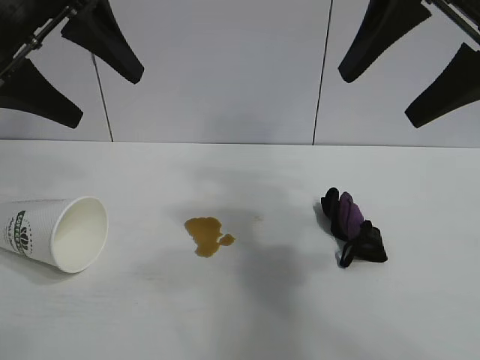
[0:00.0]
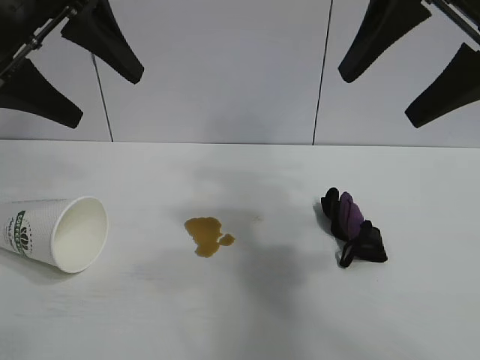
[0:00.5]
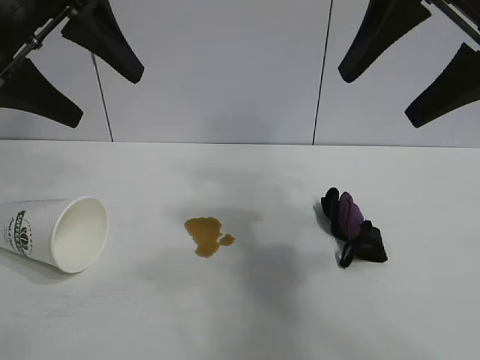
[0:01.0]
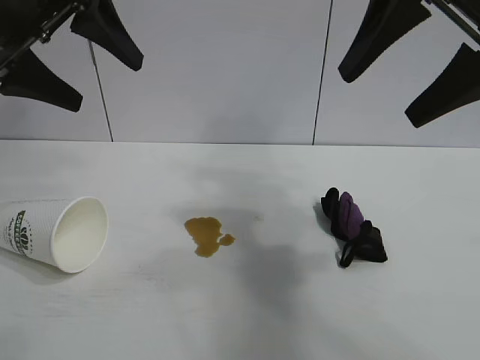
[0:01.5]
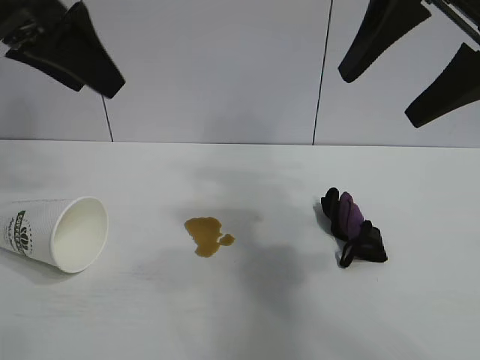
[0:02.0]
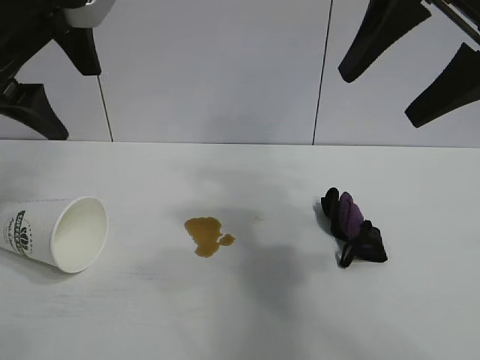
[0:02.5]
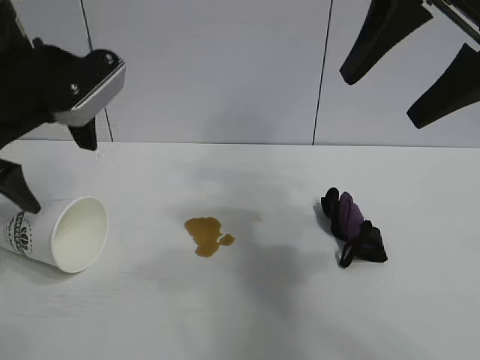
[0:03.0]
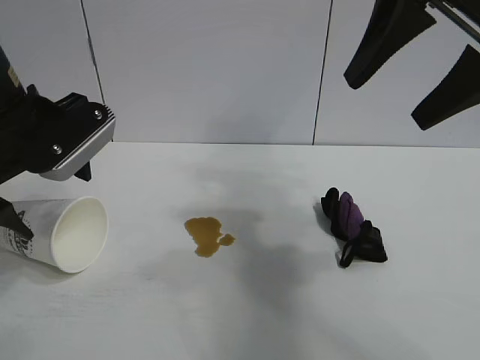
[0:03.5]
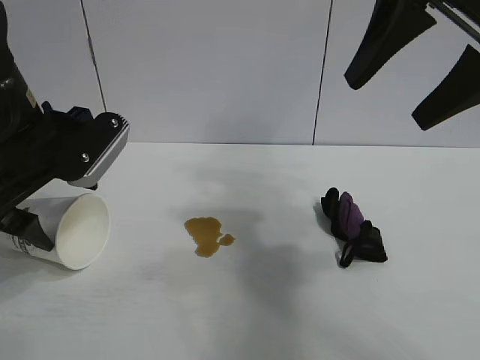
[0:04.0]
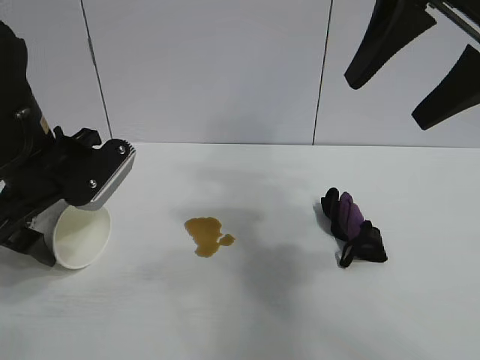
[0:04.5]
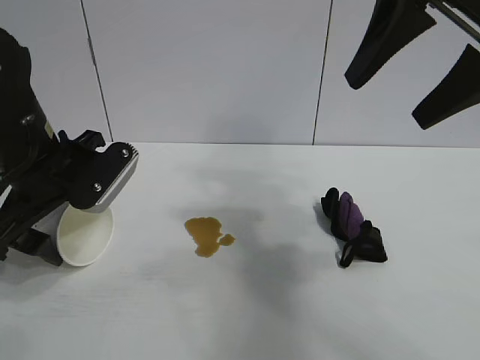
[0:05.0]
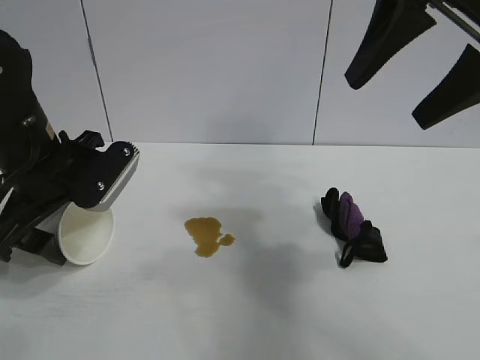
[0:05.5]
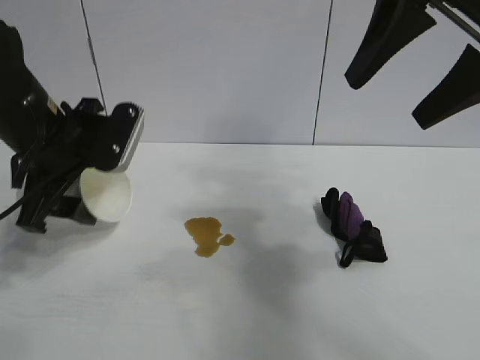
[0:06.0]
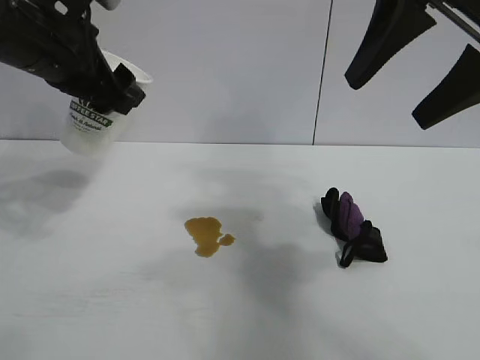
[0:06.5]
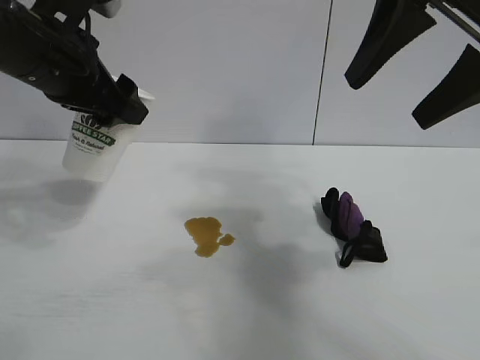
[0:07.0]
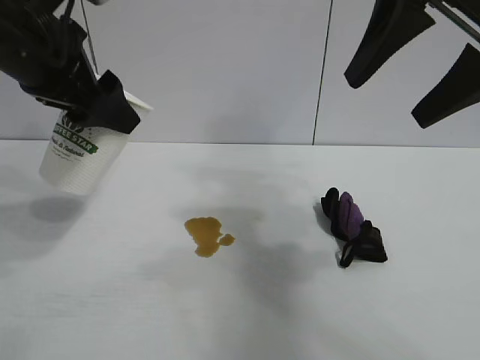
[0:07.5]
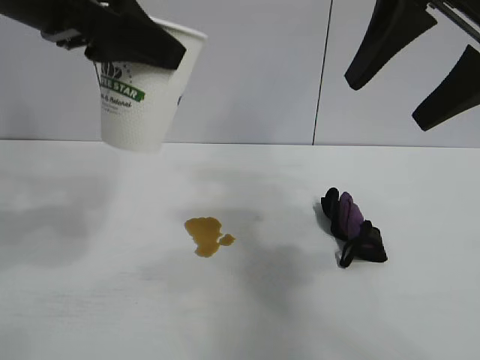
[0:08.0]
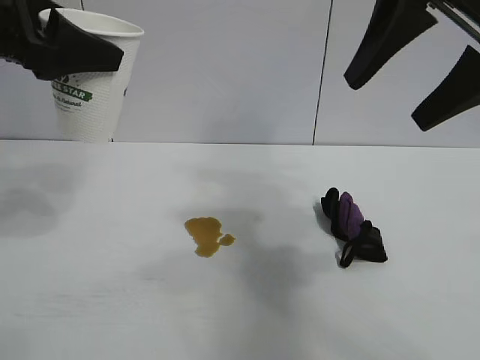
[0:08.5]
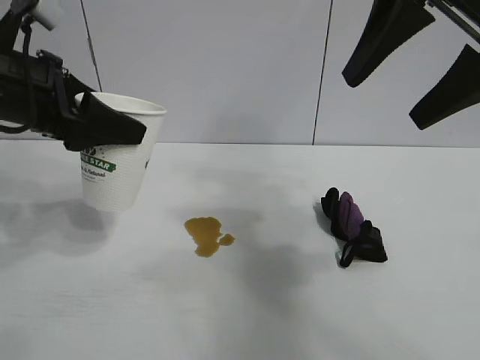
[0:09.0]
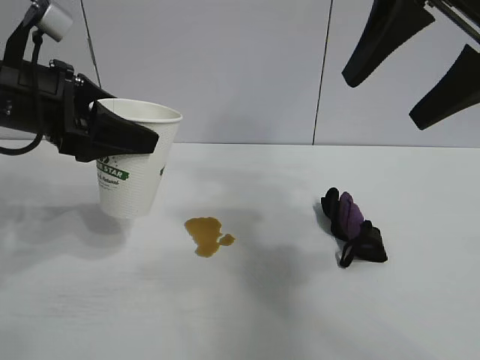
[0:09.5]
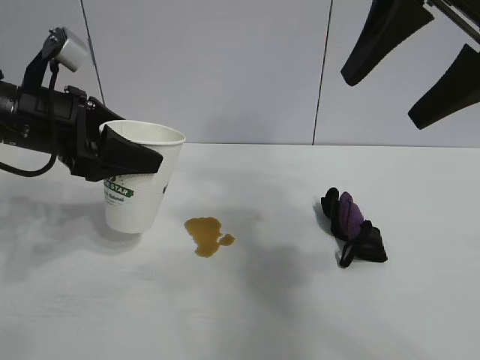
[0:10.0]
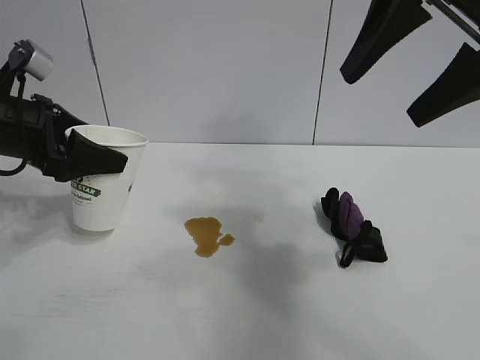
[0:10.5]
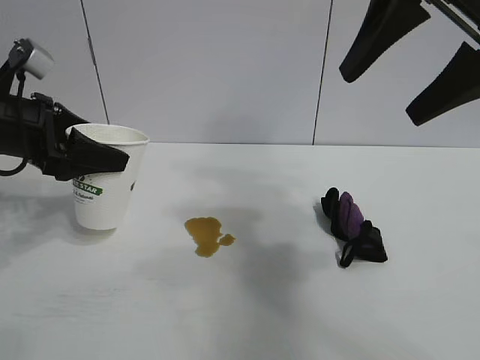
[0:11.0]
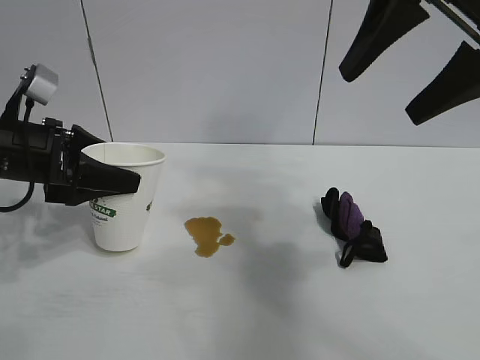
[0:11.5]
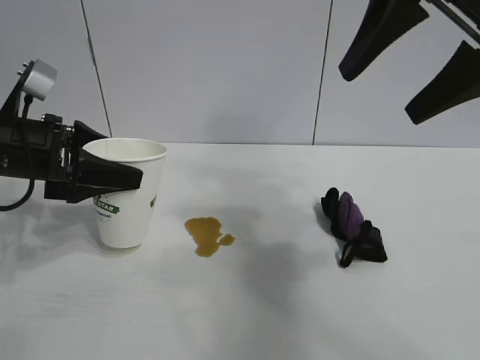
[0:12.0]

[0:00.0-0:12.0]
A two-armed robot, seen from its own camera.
Task of the whole recording: the left gripper pick up the fallen cup and place it upright, the right gripper grasp the black rag and wipe the stain on the table, the right gripper put the black rag back in its original position.
Step, 0:01.0 to 0:05.5: Grasp the paper cup with left gripper.

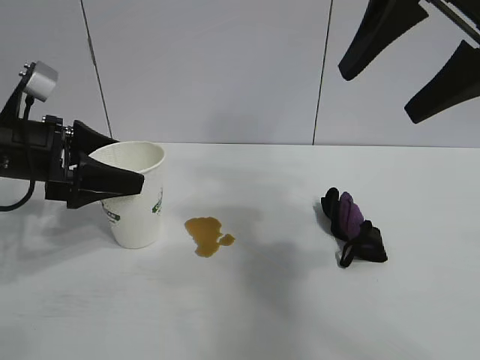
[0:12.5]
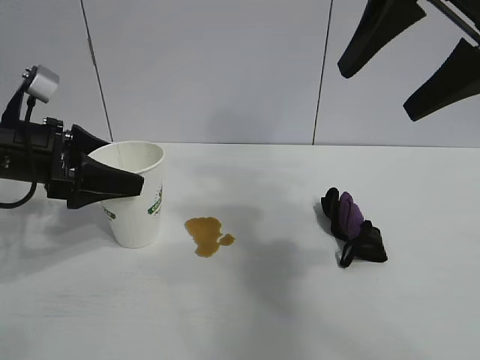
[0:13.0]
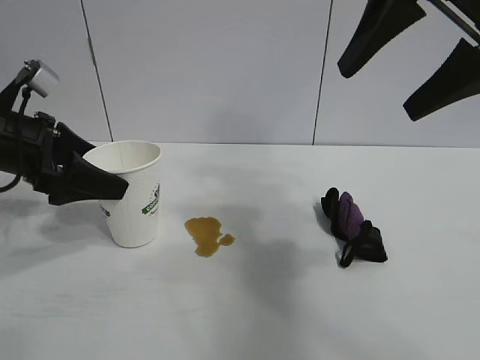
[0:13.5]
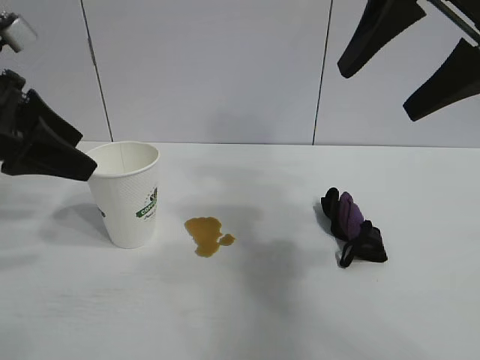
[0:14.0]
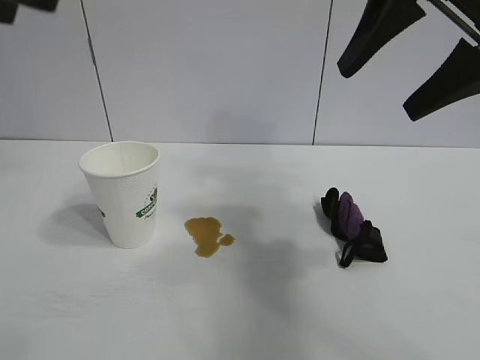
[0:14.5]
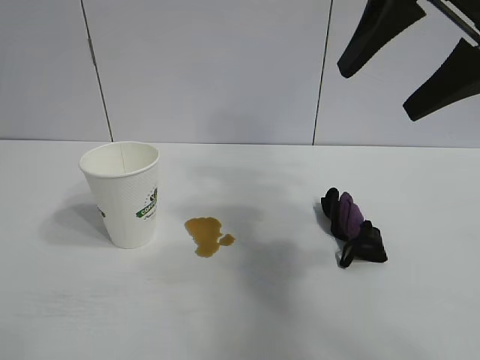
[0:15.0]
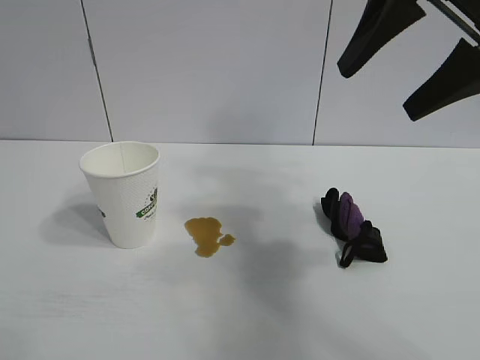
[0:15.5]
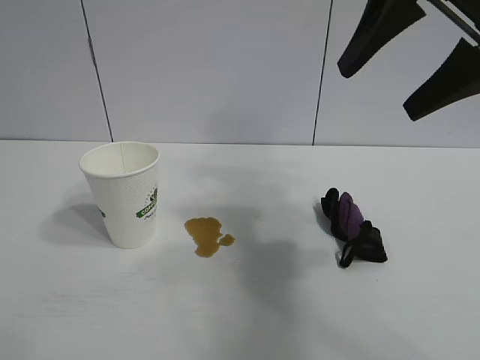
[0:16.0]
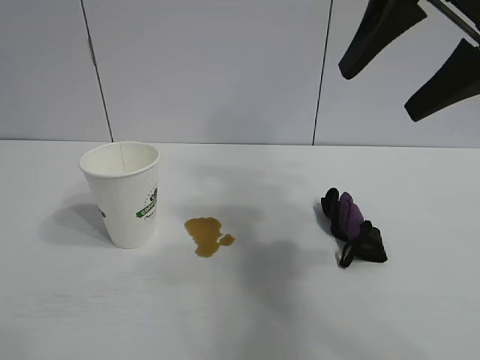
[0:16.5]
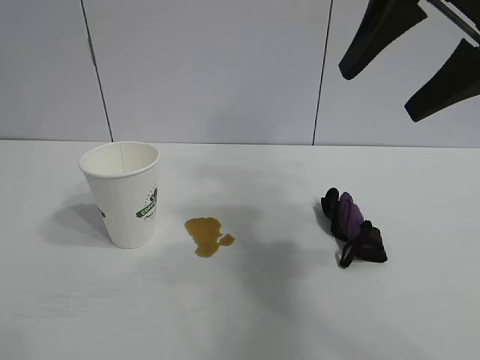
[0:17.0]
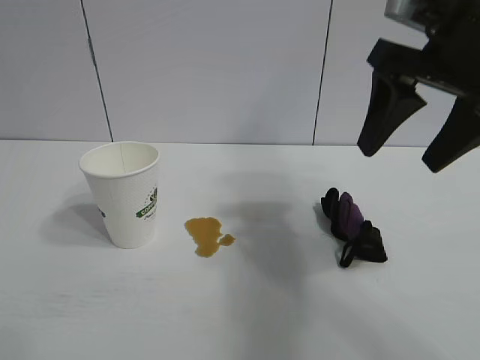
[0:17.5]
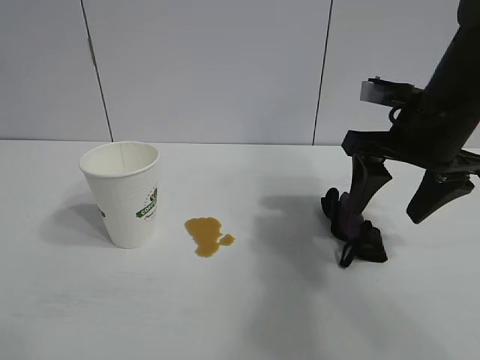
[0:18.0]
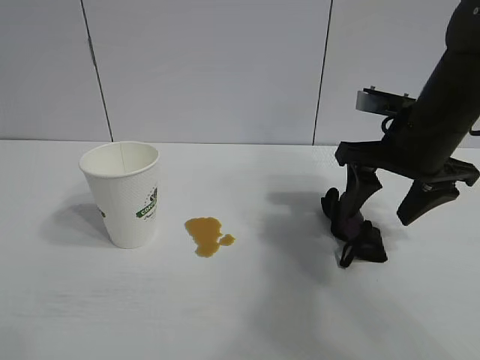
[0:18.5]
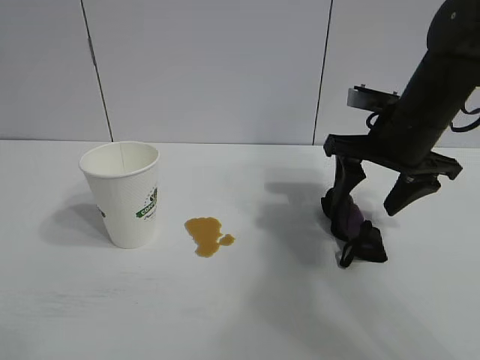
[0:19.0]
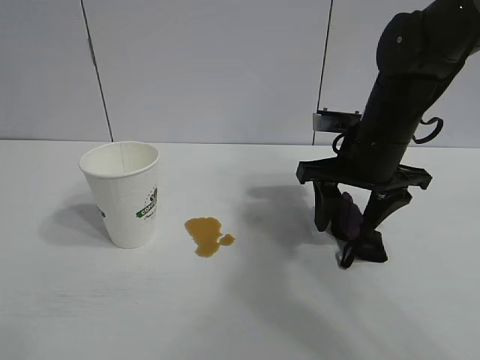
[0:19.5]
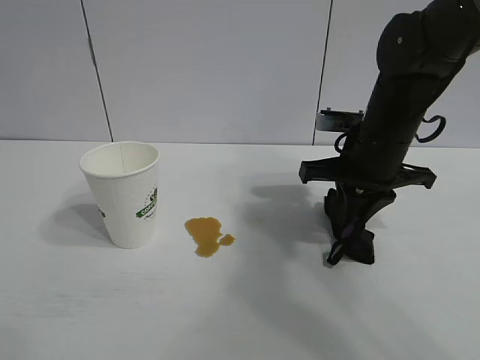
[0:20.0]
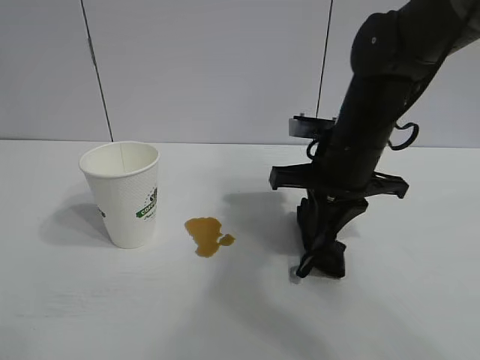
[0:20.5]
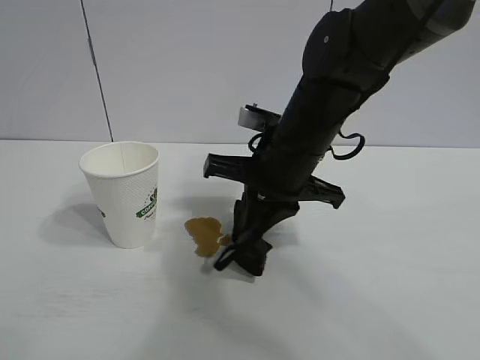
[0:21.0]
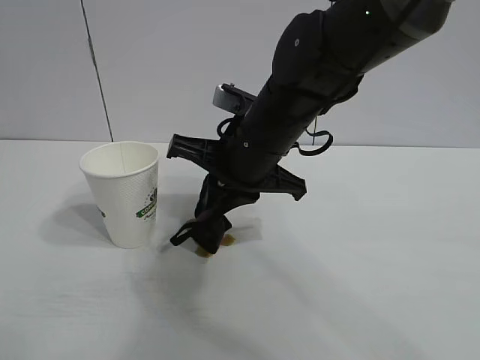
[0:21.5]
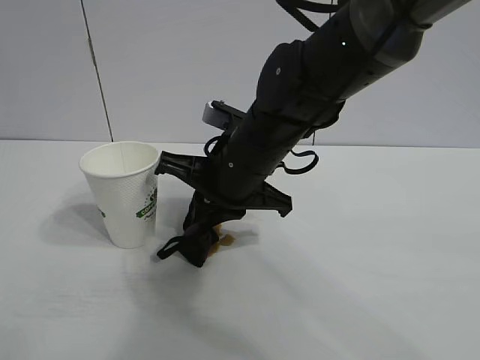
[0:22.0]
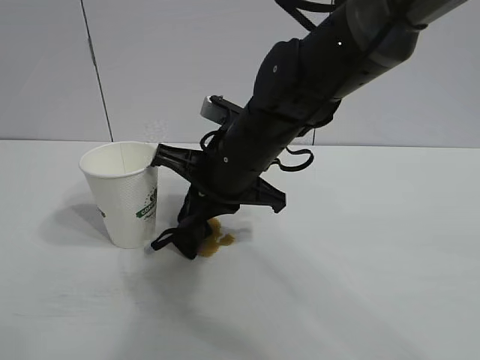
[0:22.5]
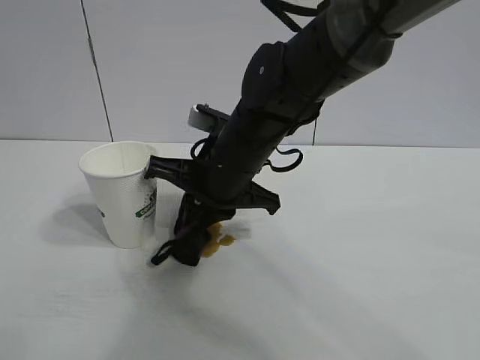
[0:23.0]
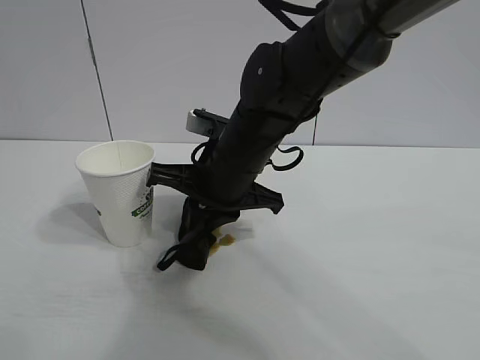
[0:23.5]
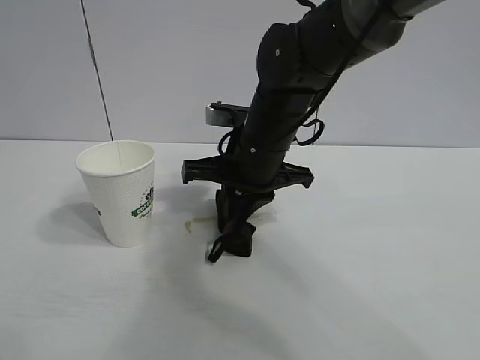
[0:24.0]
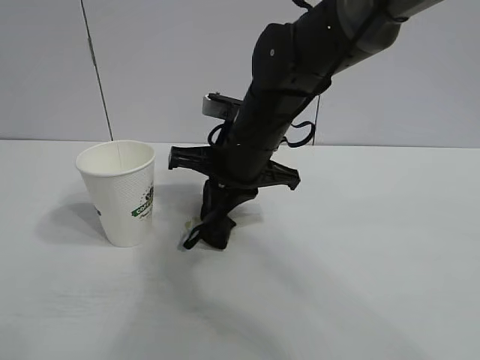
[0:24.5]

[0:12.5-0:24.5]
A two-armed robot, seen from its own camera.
Task of the whole recording: the left gripper pick up the fallen cup and place it upright, the right gripper grasp the black rag and wipe the stain on the table, the right gripper put the black rag back in its original position.
Step, 0:13.0 to 0:20.0: Grasp the rag with right gripper.
